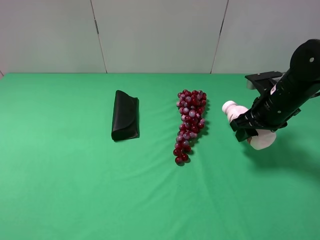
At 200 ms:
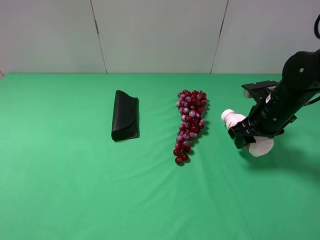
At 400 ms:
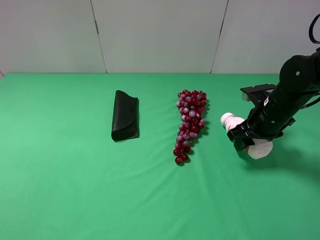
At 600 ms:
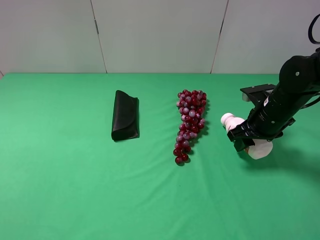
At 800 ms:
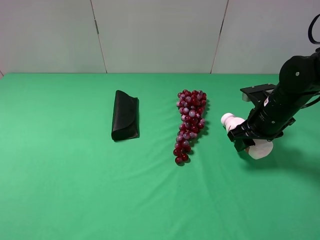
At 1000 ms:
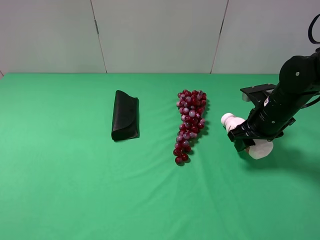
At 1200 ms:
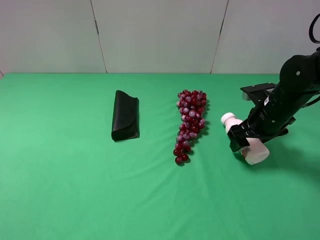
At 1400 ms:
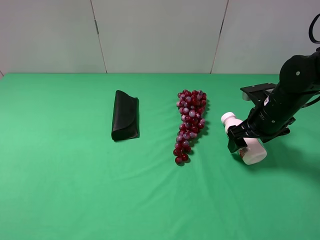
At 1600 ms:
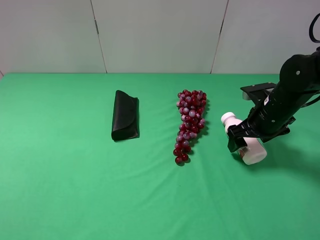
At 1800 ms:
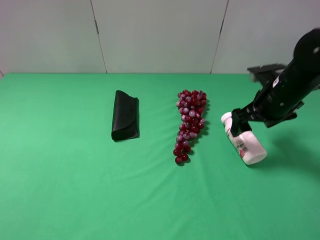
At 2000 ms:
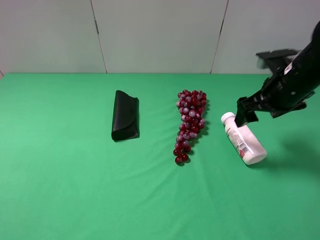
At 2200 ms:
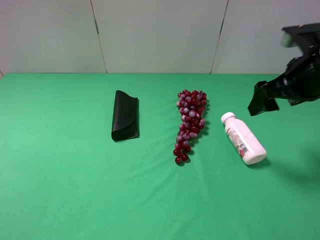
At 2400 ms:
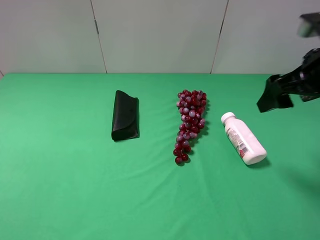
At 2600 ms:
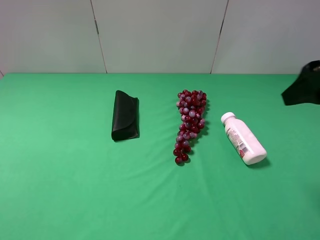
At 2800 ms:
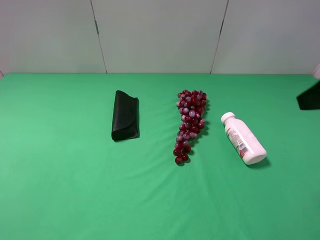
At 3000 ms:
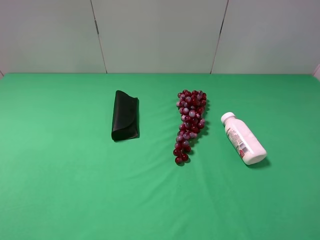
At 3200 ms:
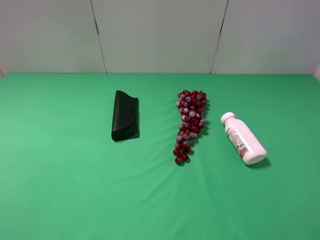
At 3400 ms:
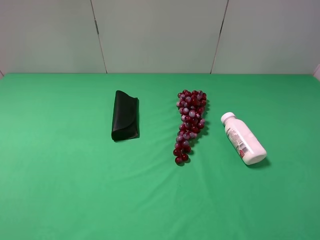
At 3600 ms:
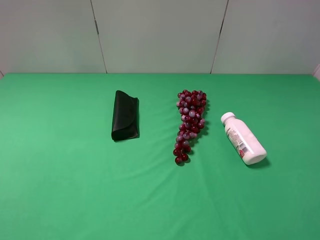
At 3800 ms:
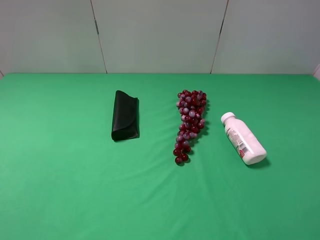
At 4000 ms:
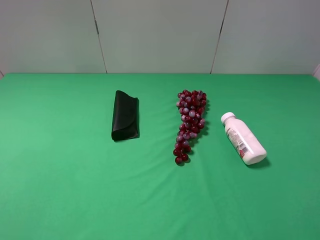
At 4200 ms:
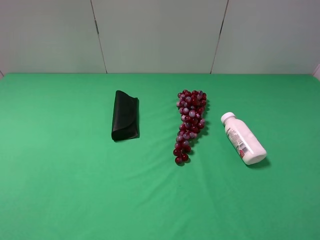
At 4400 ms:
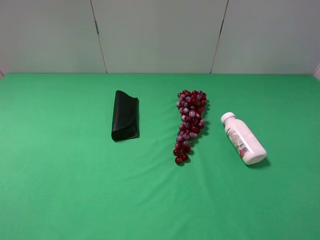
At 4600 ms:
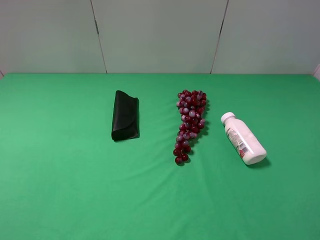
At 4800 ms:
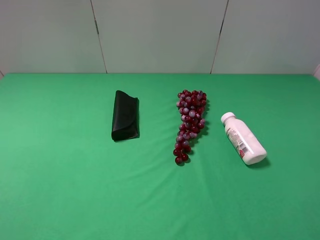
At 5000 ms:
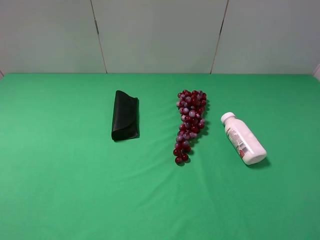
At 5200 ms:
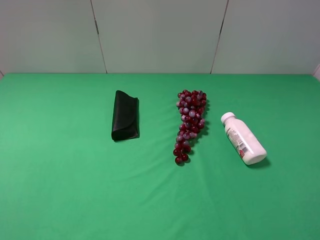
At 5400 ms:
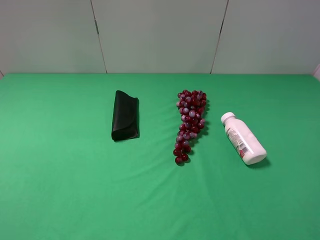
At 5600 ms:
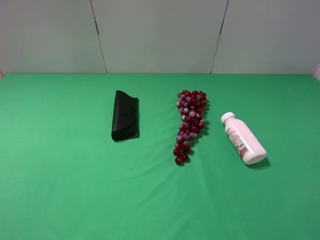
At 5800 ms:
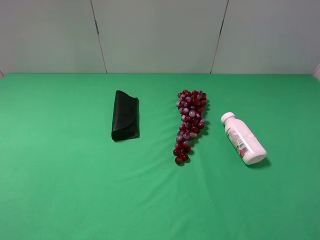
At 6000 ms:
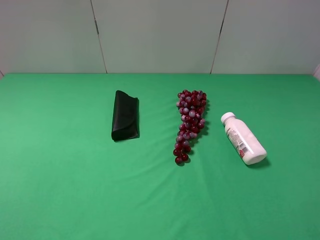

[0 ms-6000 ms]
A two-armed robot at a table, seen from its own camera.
Task of the whole recording: use the left gripper to pick up the item and transfer it from the left gripper to the right gripper.
0 ms to 1600 ms: The right gripper opens its fingers.
1600 ms to 3000 ms: The right gripper is displaced backward and upward by approximately 25 cm.
